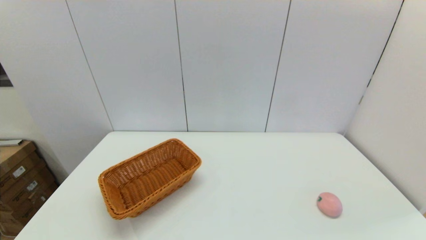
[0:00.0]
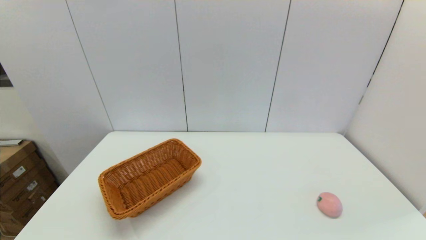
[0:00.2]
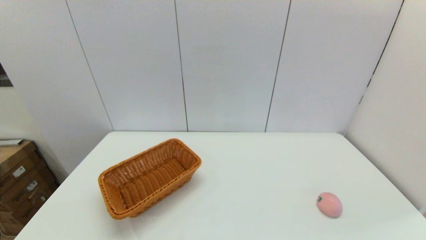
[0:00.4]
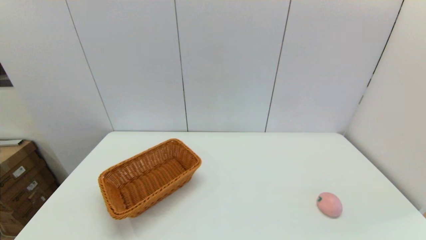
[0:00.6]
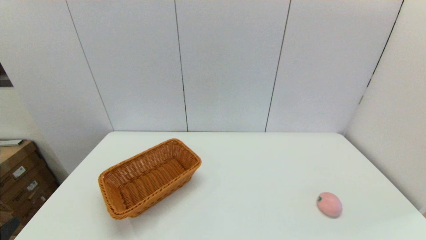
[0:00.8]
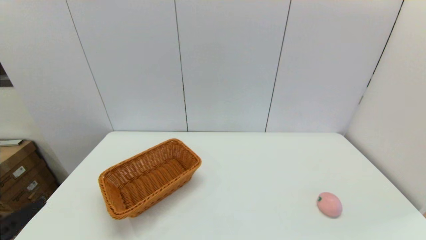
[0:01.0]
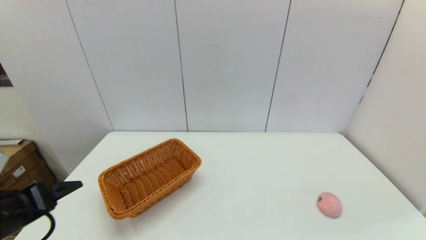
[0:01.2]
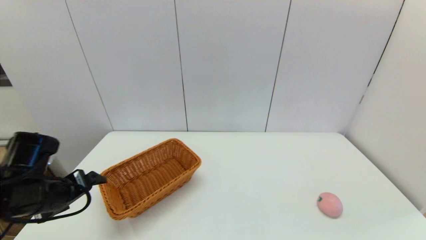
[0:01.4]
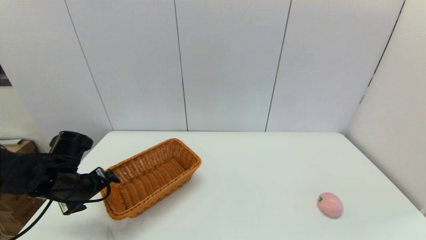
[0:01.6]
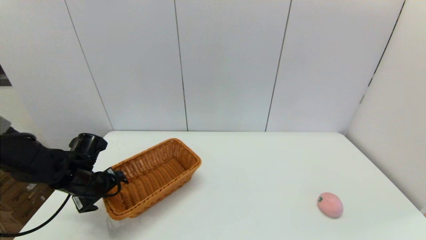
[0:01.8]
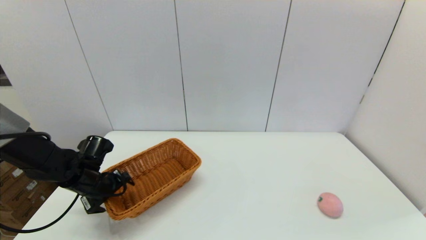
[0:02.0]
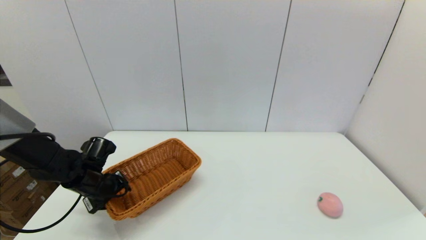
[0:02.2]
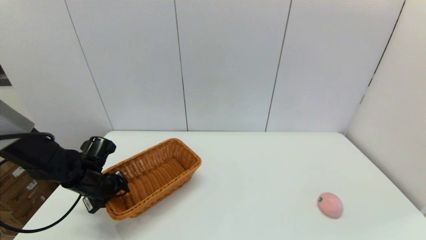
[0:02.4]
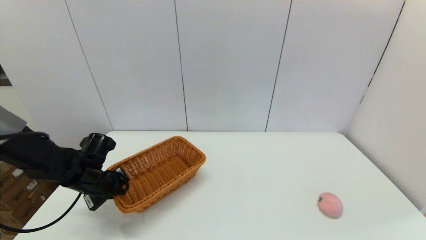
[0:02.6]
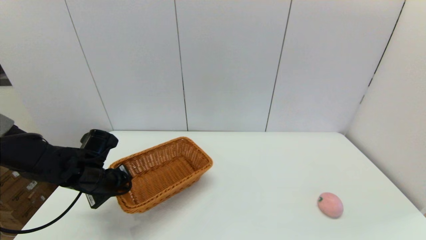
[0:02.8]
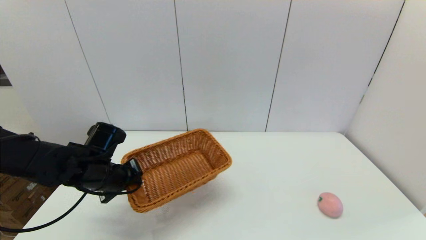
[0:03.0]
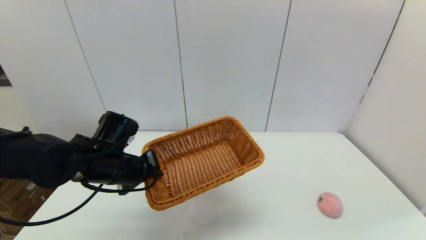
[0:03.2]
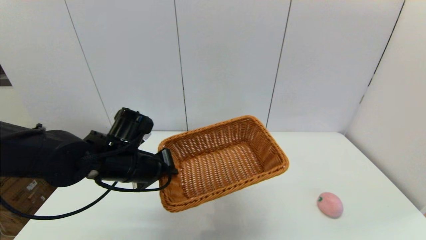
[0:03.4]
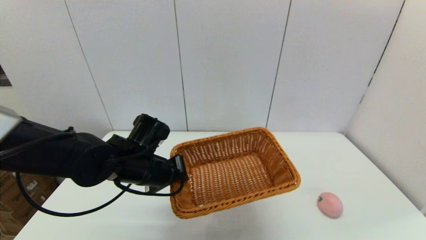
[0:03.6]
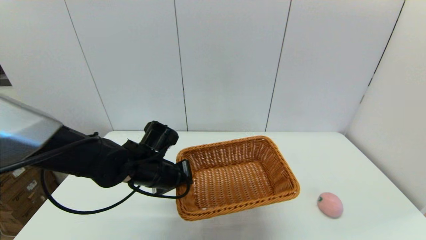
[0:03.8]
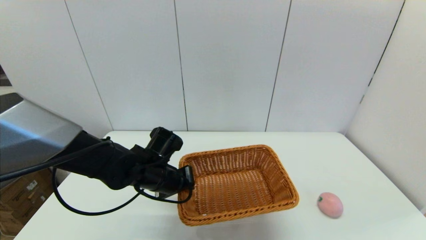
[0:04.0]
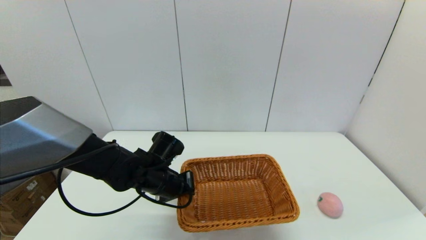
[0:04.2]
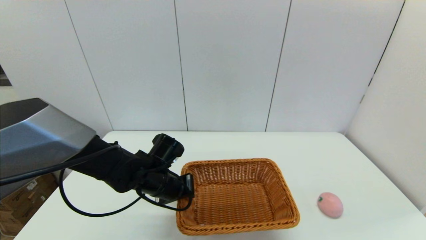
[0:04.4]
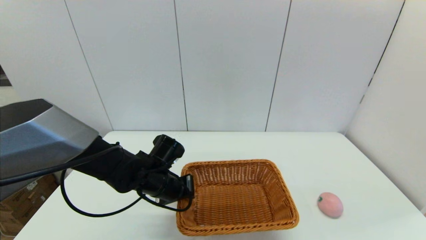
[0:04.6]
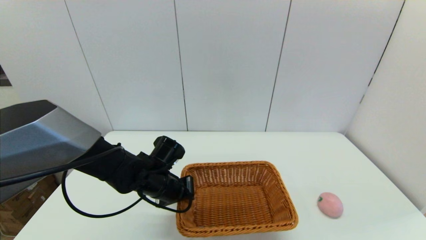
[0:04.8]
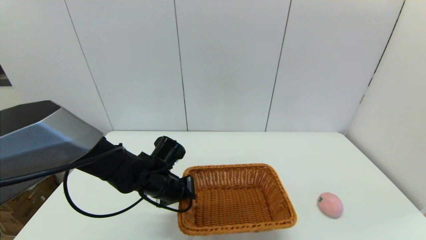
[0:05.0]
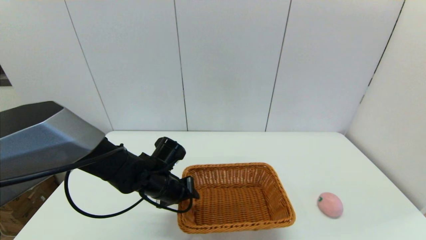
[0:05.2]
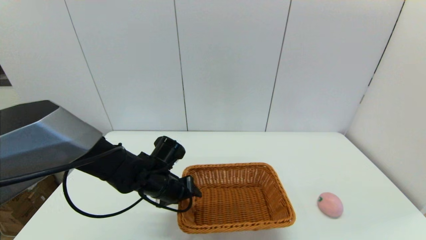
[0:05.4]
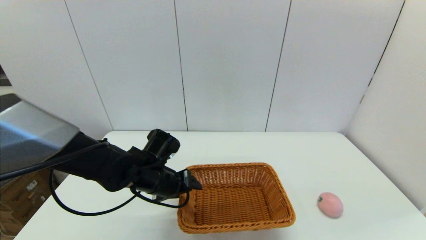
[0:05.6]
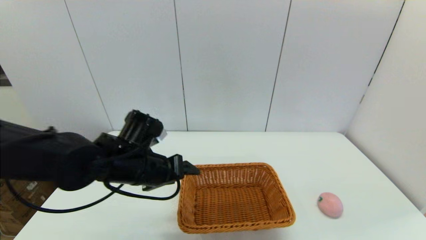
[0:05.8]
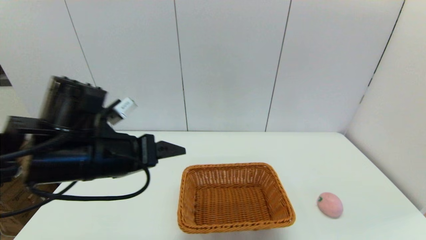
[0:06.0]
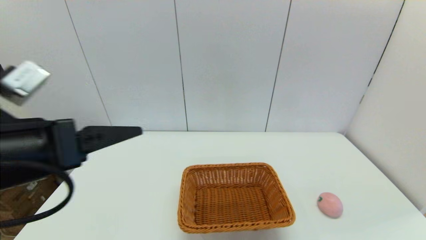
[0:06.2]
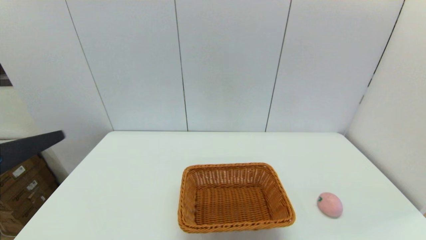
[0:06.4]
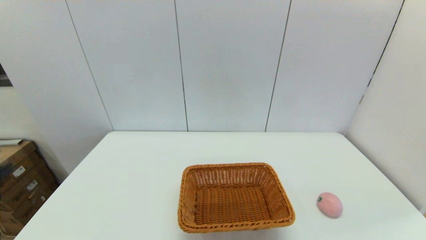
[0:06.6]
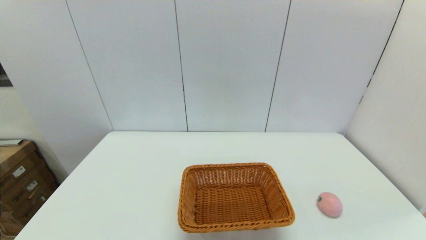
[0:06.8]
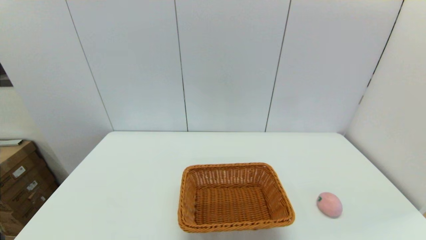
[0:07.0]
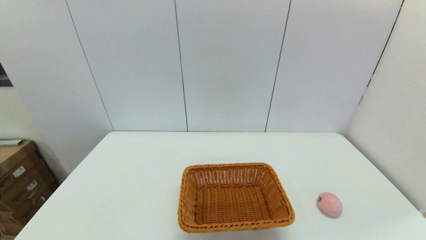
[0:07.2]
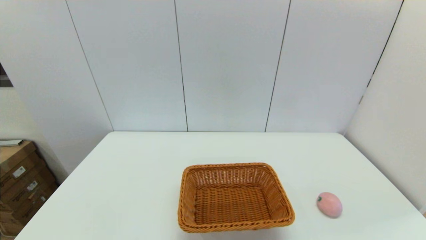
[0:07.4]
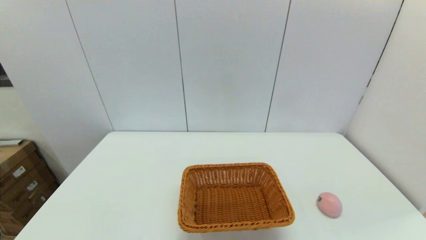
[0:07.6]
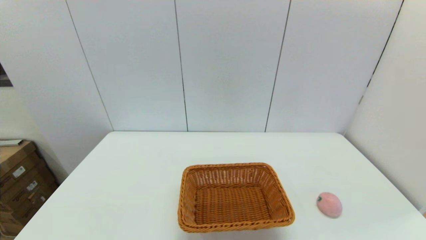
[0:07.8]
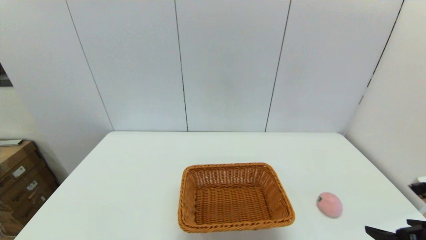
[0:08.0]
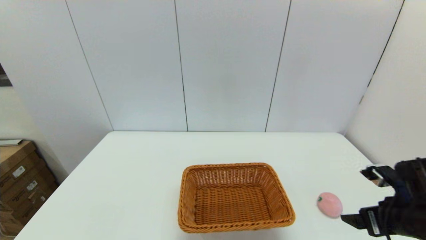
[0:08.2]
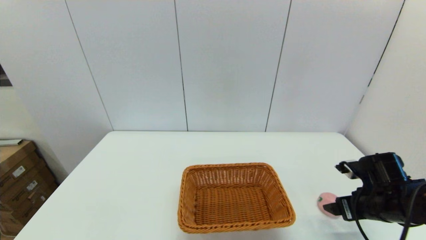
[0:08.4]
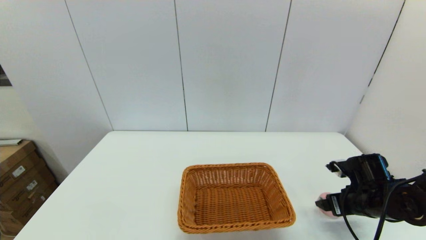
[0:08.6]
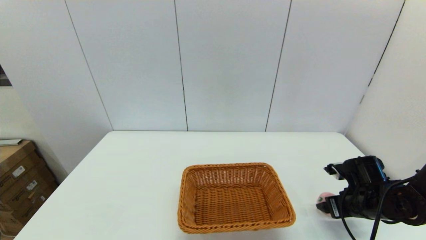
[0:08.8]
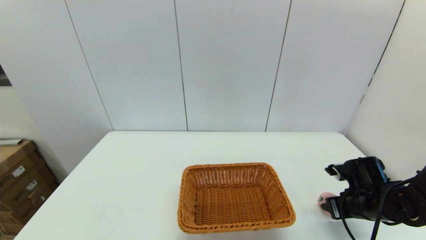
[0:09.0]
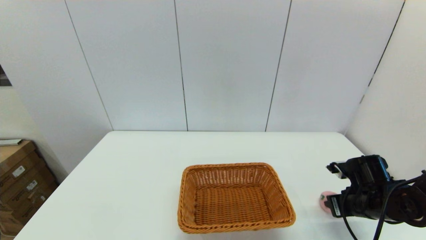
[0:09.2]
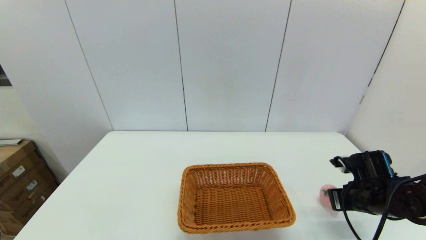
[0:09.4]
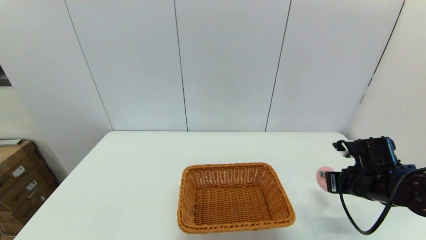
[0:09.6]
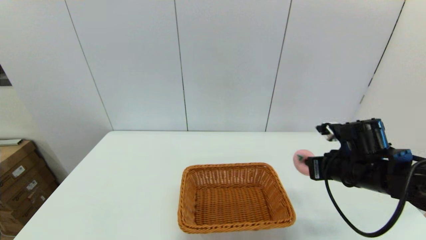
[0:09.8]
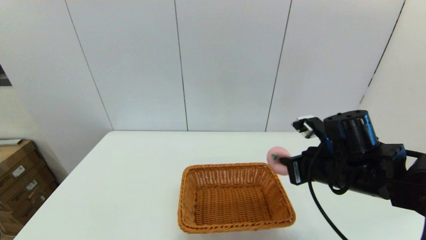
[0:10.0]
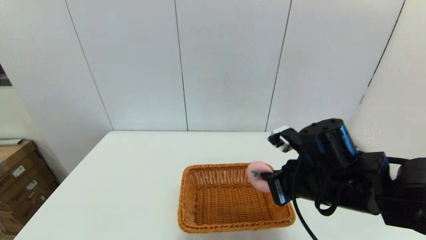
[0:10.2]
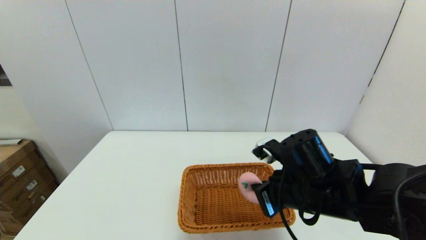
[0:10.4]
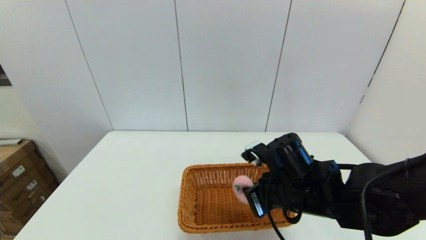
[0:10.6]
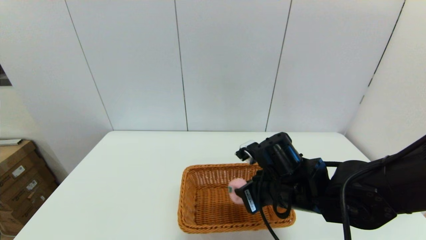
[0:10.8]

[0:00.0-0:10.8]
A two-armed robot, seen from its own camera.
Step, 0:00.0 to 0:02.8: Grasp the light basket with the left gripper.
Step, 0:03.0 to 0:05.0: Place the light basket on the middle of the table with the left gripper.
Step, 0:05.4 to 0:09.2: Grasp the peach with the right gripper.
0:00.0 to 0:01.6: The left gripper travels forward by approximately 30 cm.
0:01.6 to 0:03.0: The left gripper travels to the right by some 10 cm, and closes up.
0:03.0 to 0:04.6: The left gripper is displaced to the right and downward by about 10 cm.
0:04.6 to 0:06.2: The left gripper shifts some 30 cm upward, backward and to the left, and opens.
0:06.2 to 0:07.8: The left gripper travels downward and backward by approximately 25 cm.
0:07.8 to 0:09.2: The right gripper moves forward and downward, about 20 cm, and closes its fingers.
0:09.2 to 0:10.8: The right gripper is displaced to the left by some 20 cm.

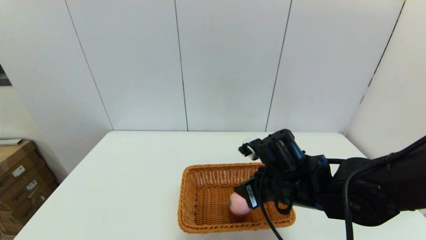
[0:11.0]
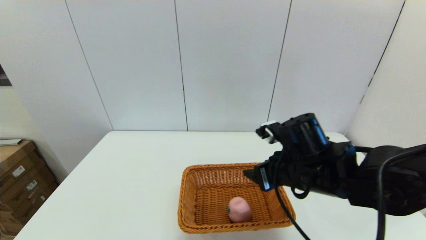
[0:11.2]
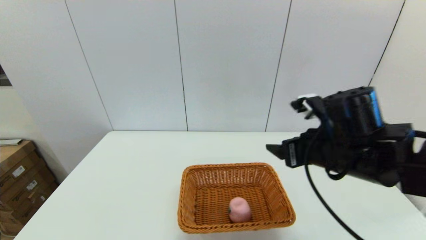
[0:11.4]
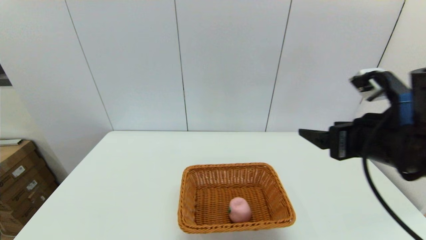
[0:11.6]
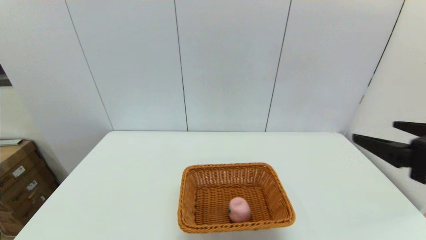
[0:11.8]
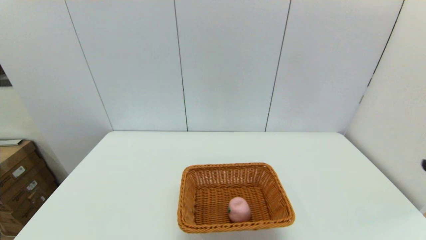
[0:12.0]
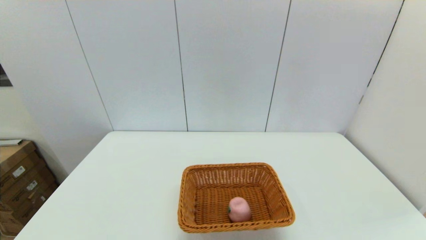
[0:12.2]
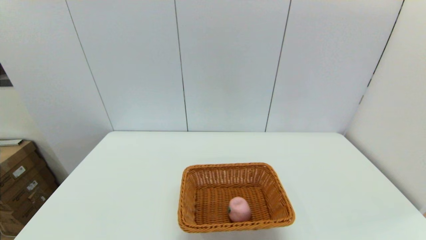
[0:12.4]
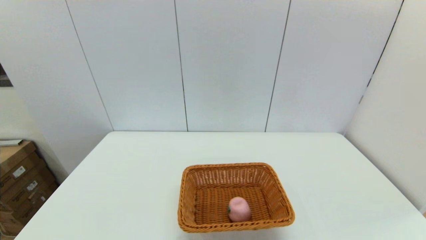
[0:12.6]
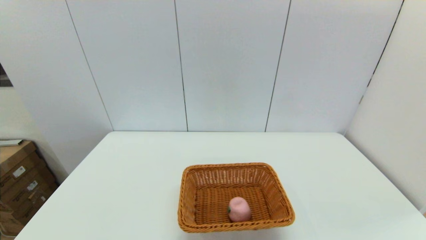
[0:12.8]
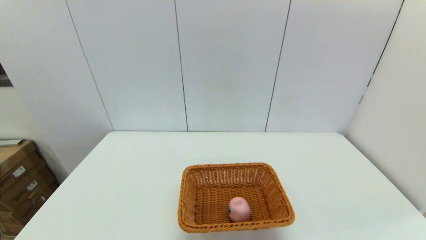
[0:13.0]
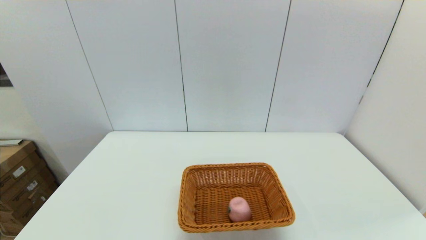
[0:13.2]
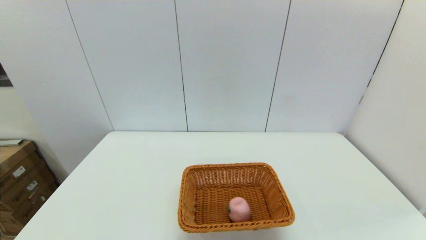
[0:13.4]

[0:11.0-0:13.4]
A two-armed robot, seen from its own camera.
0:11.0 to 0:12.2: The right gripper is displaced backward and to the right by some 30 cm.

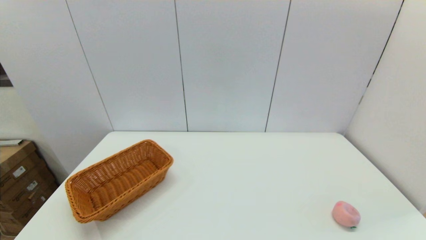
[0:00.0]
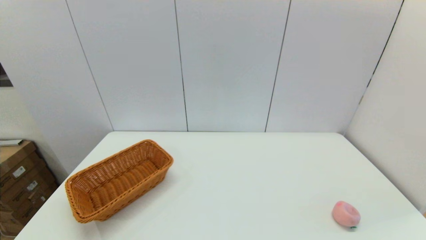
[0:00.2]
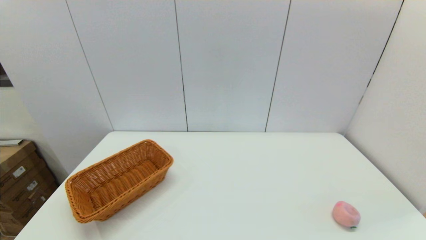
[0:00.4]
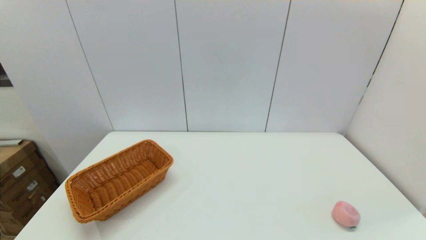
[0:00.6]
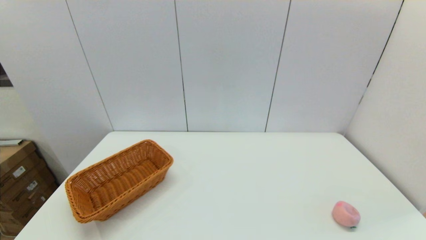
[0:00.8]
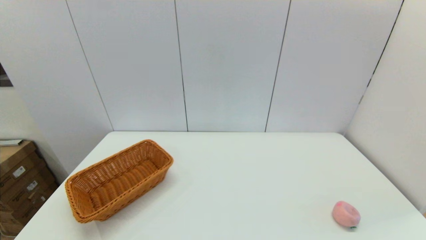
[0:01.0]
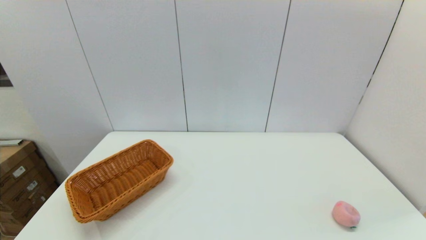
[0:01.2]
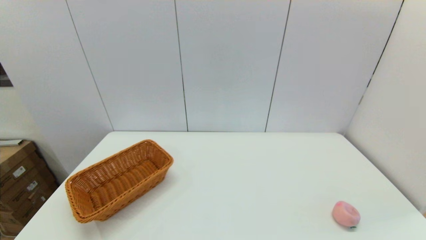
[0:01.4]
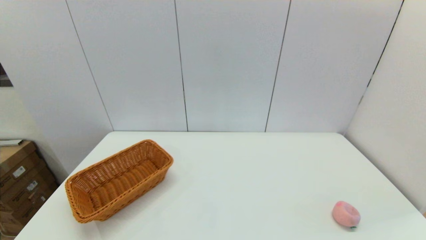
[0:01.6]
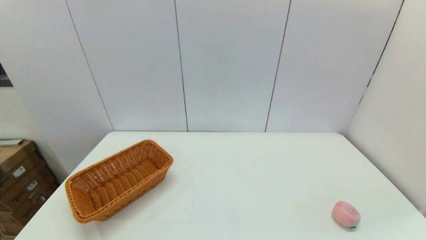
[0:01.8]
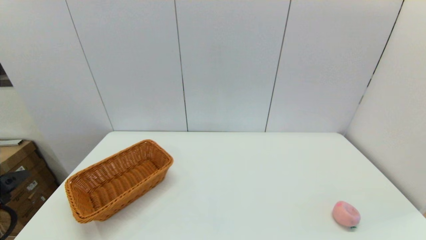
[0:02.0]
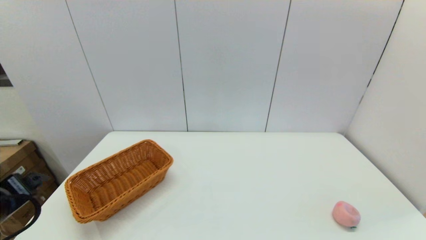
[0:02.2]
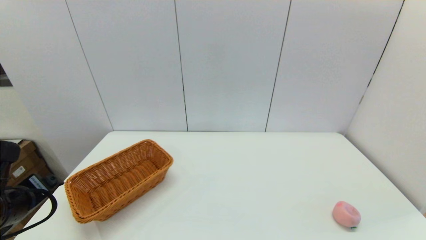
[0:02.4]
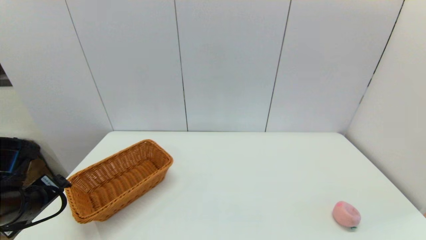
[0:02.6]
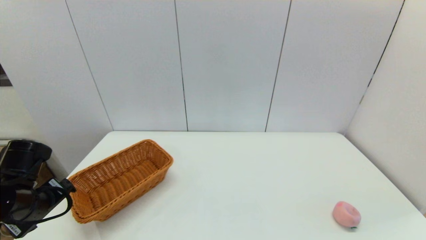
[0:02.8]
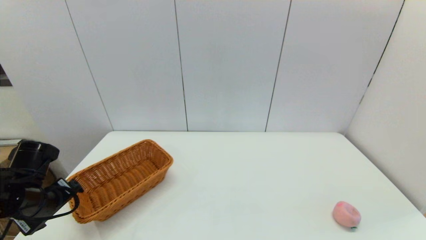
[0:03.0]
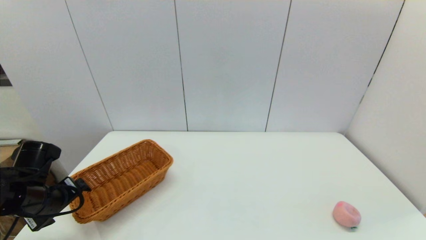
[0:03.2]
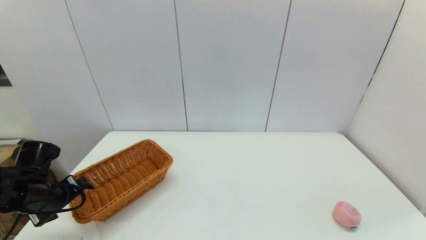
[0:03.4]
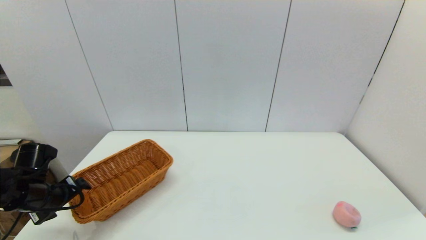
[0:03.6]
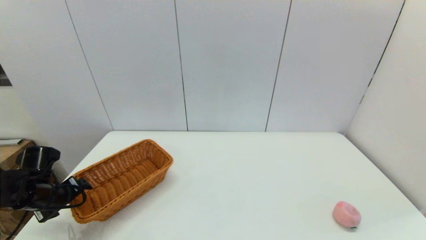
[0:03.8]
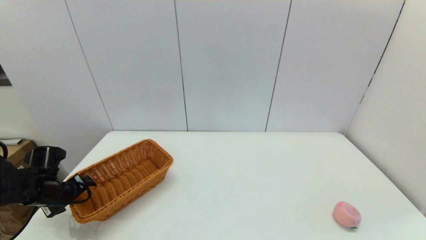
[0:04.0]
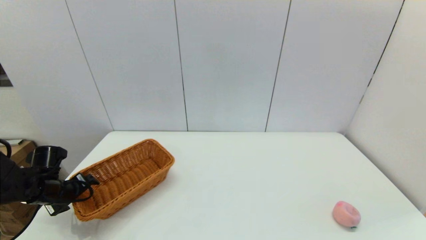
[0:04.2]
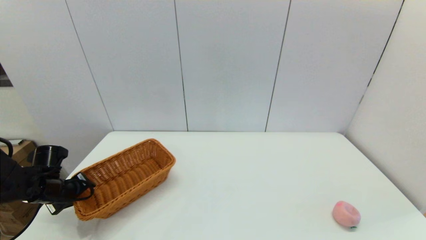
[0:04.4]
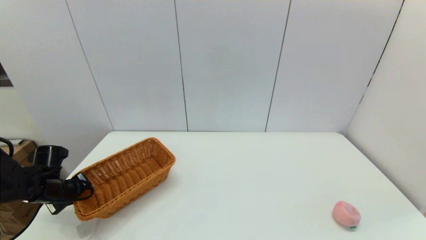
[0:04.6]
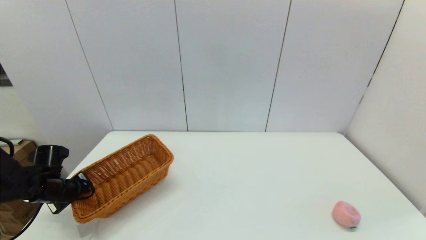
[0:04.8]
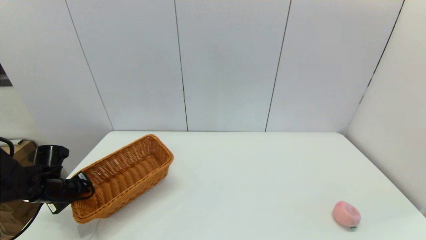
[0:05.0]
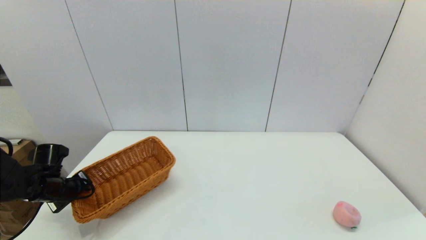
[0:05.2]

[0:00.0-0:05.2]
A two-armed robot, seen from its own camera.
0:01.8 to 0:03.4: The left gripper is displaced forward and downward by about 20 cm.
0:03.4 to 0:05.2: The left gripper travels forward and downward by approximately 10 cm, and closes its fingers.
